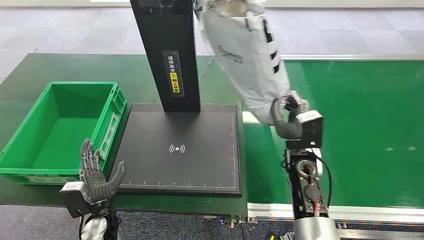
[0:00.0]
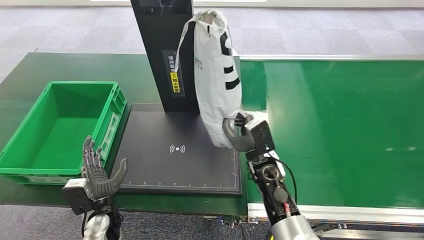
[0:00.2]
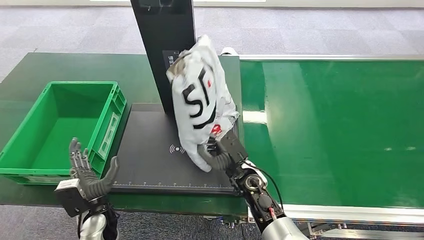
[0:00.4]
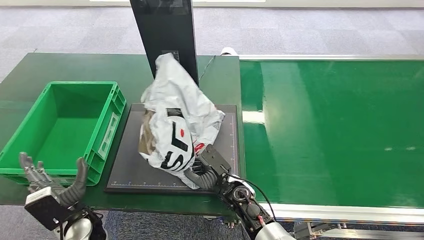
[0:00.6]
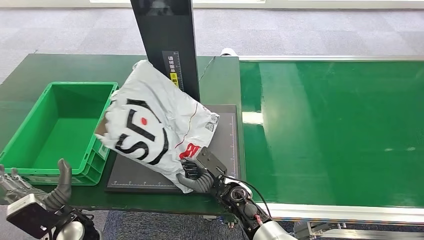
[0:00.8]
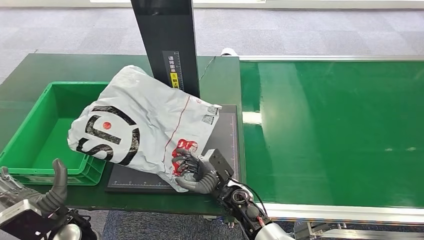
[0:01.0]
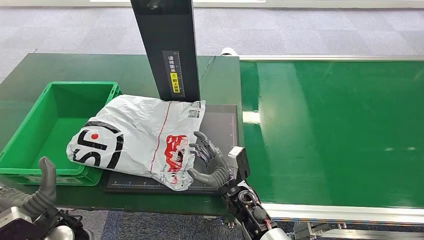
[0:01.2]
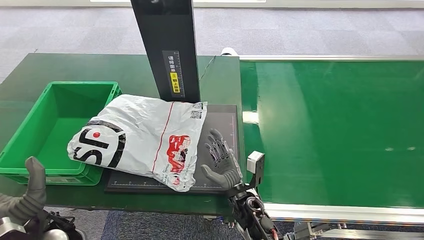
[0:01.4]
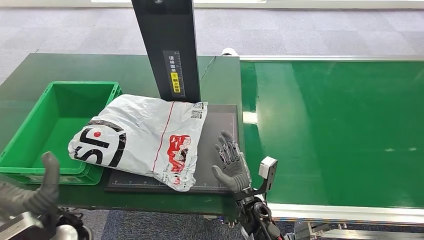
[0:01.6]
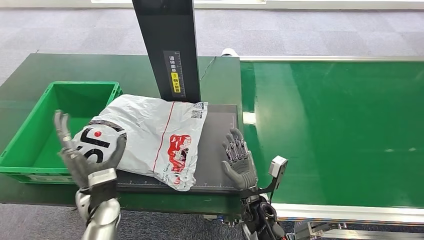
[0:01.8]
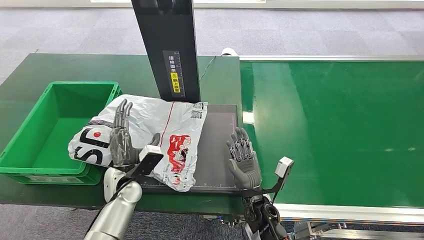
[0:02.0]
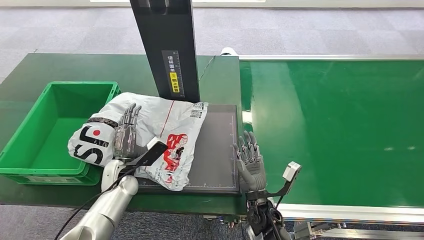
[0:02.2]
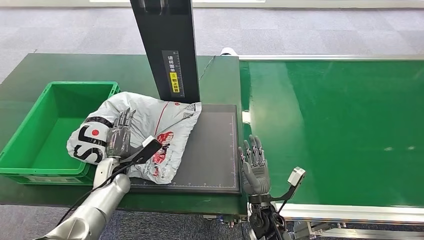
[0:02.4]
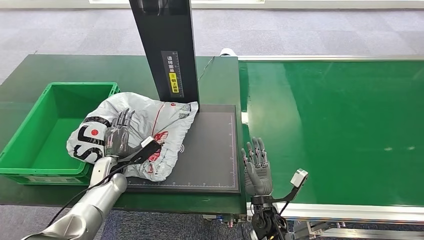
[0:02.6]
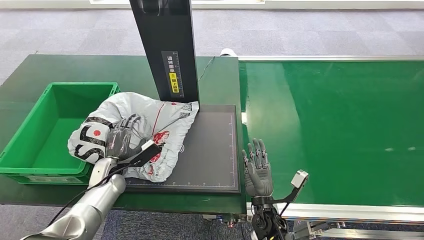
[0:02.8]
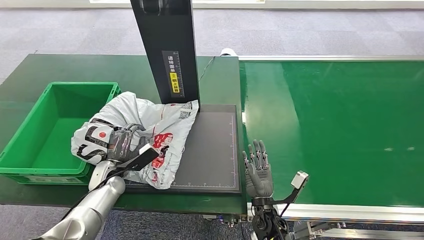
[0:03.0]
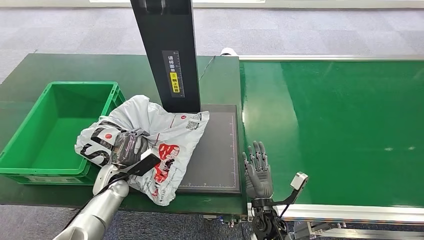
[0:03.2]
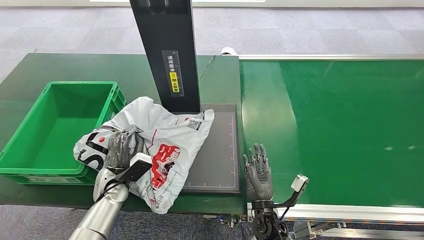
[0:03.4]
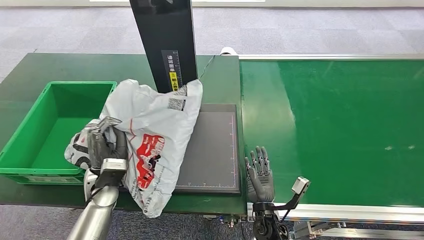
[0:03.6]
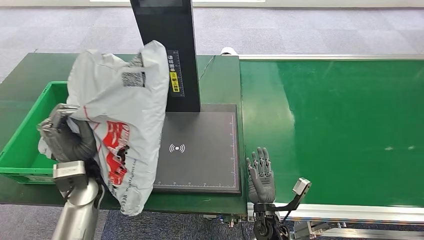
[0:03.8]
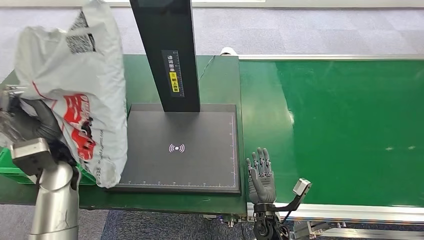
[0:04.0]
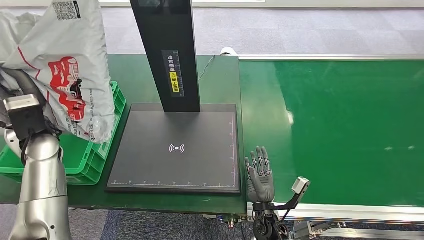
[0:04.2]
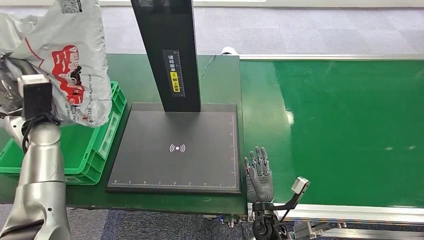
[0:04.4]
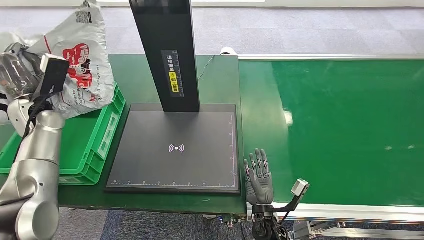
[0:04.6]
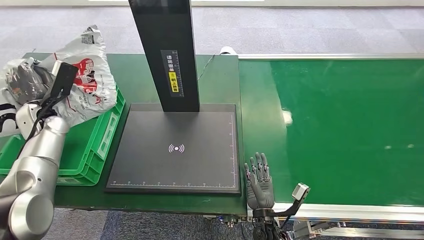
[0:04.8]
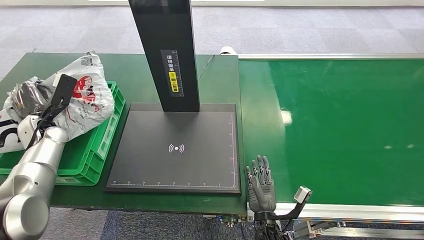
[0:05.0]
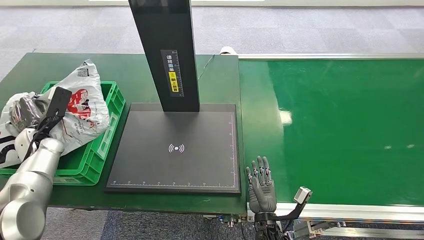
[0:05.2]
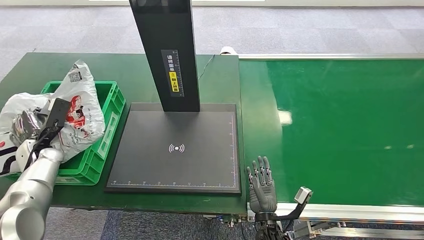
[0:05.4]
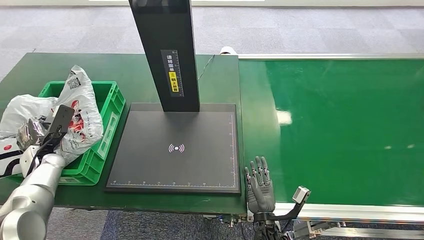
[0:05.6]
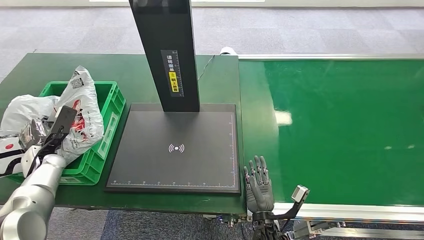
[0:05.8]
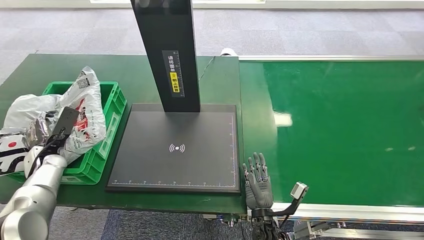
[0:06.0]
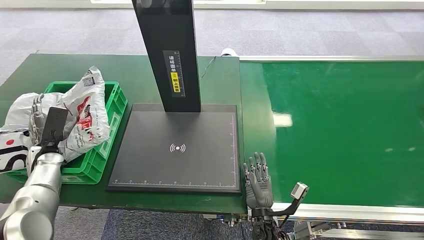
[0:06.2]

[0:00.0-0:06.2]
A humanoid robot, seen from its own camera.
Step, 0:06.0 to 0:06.2: Place the package into the parcel locker.
